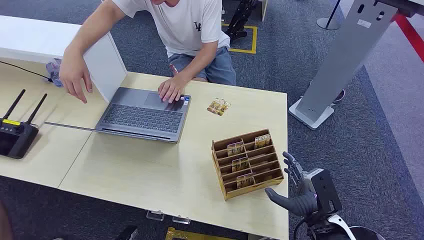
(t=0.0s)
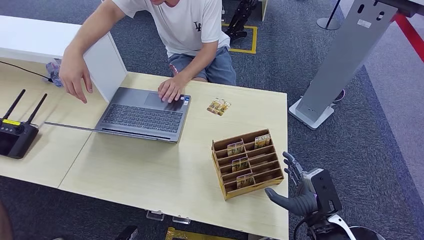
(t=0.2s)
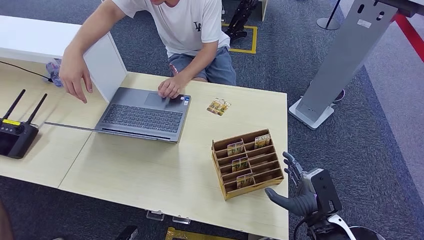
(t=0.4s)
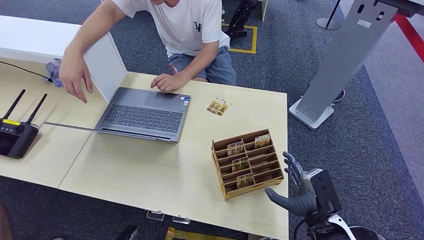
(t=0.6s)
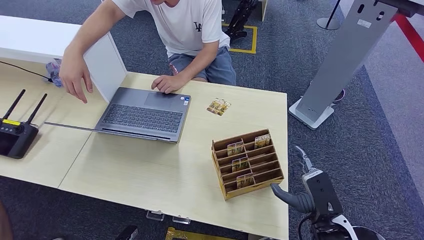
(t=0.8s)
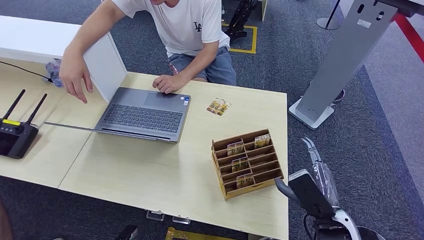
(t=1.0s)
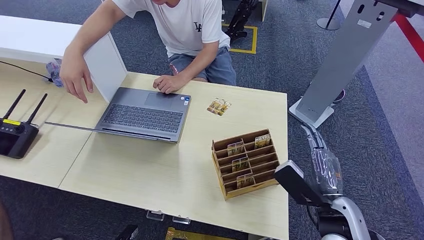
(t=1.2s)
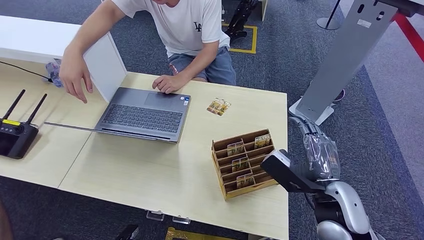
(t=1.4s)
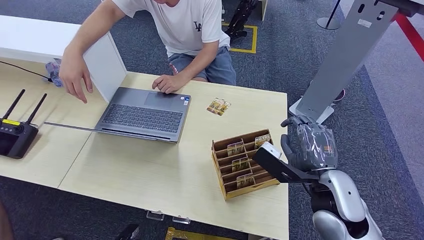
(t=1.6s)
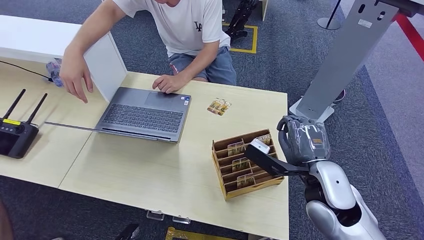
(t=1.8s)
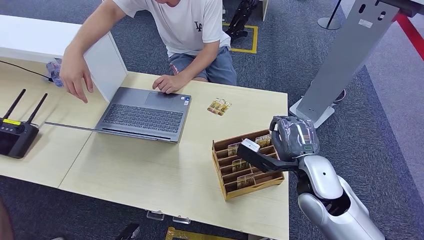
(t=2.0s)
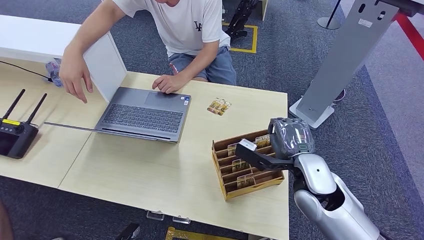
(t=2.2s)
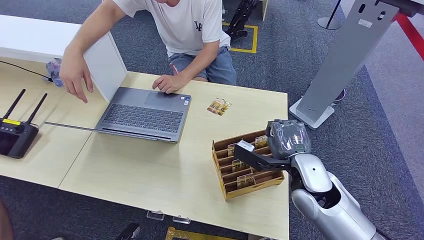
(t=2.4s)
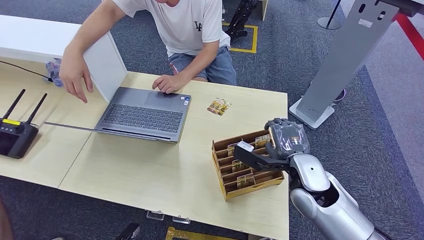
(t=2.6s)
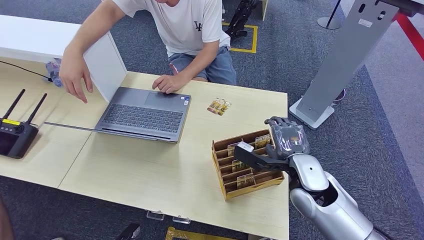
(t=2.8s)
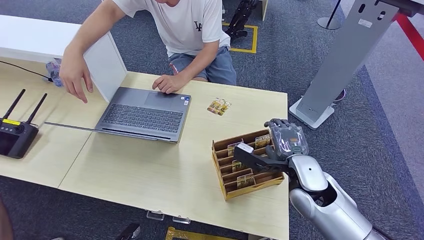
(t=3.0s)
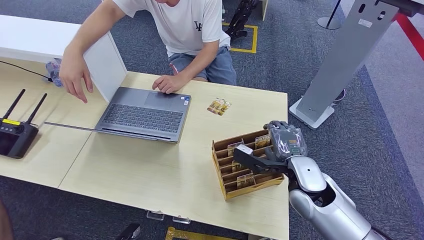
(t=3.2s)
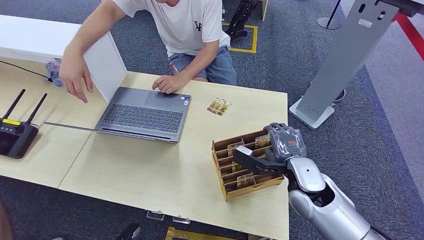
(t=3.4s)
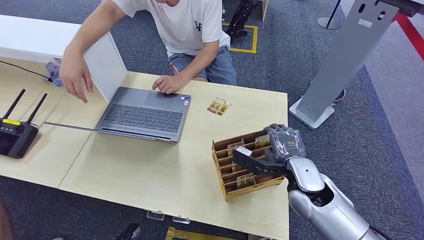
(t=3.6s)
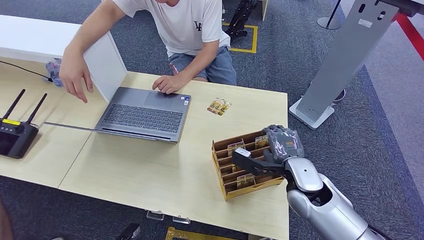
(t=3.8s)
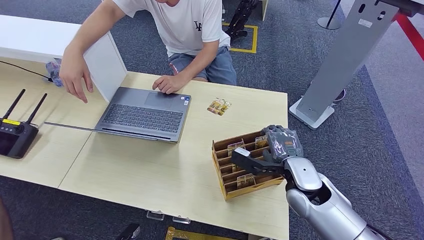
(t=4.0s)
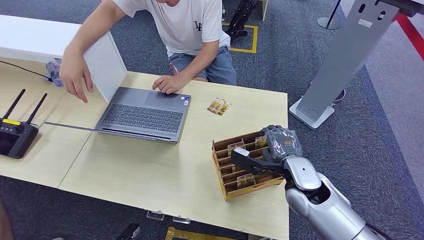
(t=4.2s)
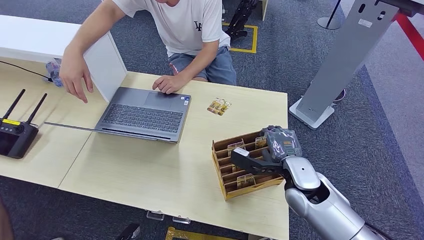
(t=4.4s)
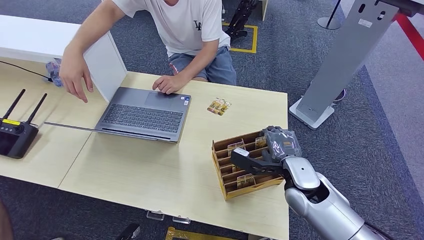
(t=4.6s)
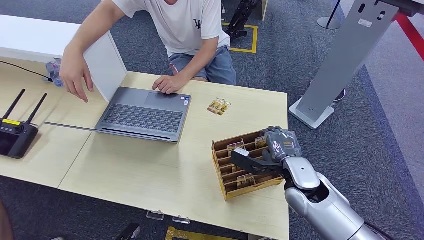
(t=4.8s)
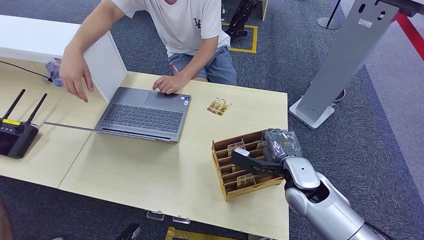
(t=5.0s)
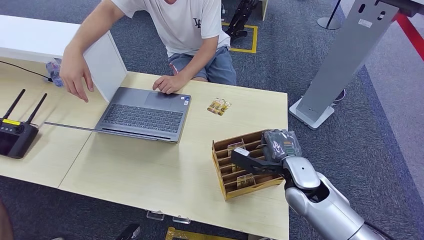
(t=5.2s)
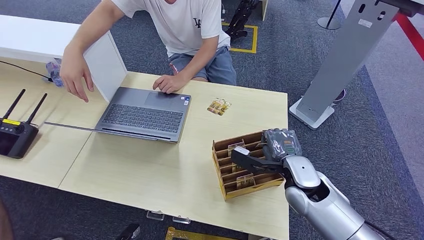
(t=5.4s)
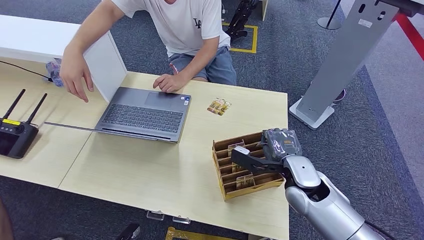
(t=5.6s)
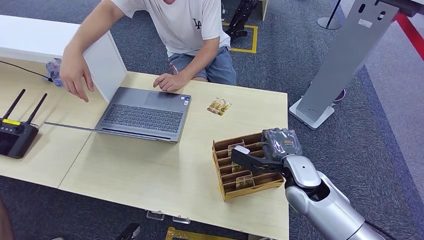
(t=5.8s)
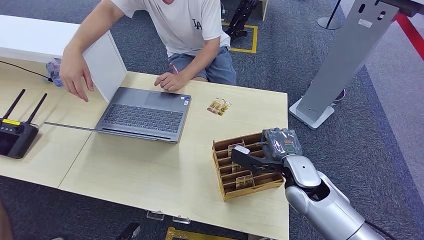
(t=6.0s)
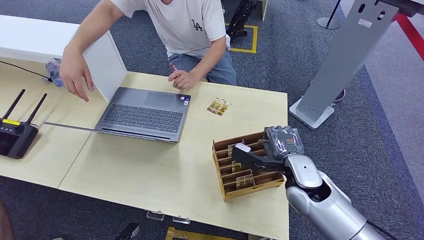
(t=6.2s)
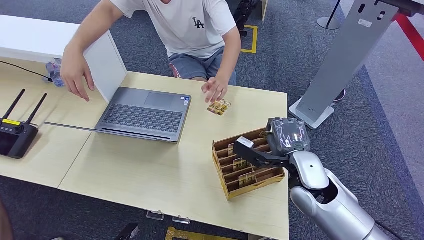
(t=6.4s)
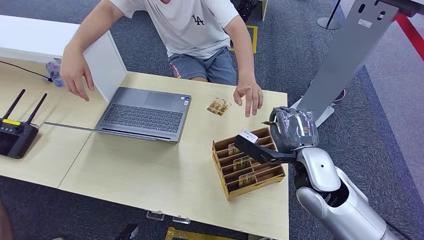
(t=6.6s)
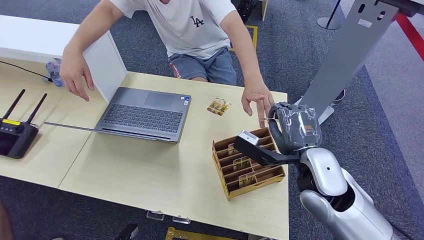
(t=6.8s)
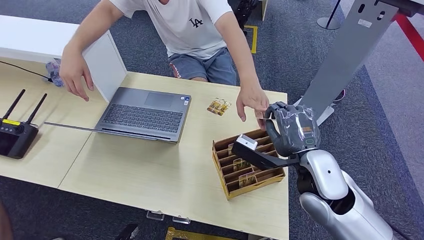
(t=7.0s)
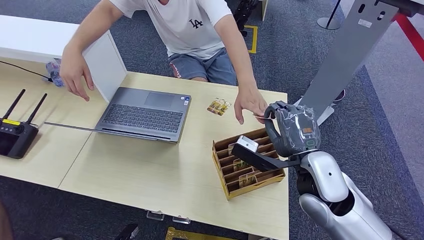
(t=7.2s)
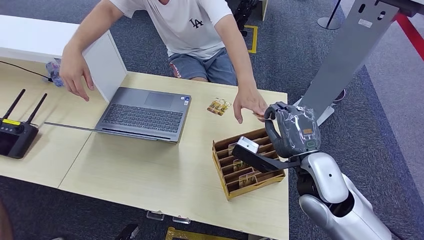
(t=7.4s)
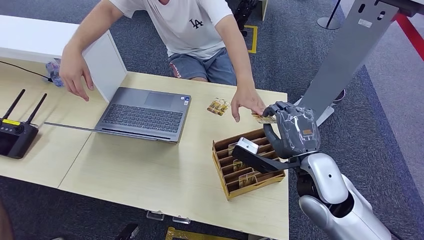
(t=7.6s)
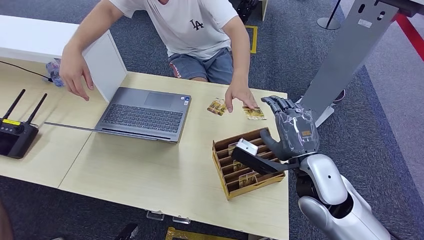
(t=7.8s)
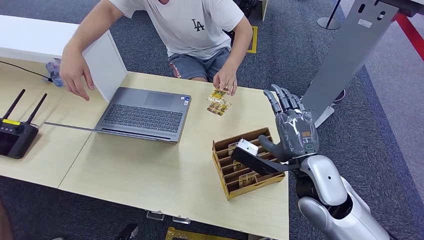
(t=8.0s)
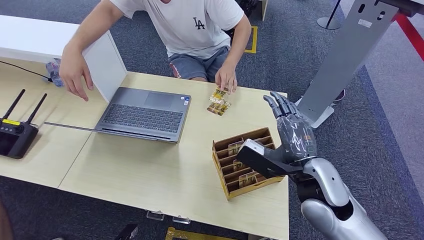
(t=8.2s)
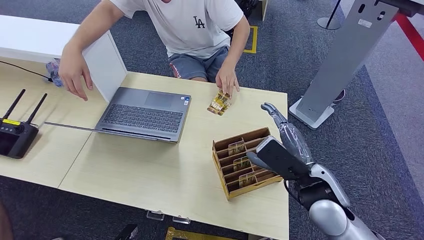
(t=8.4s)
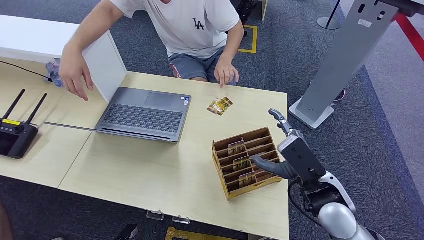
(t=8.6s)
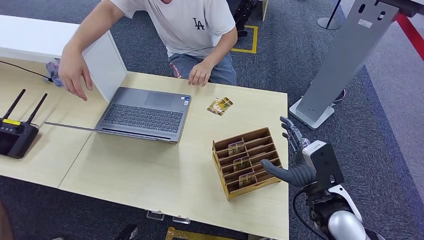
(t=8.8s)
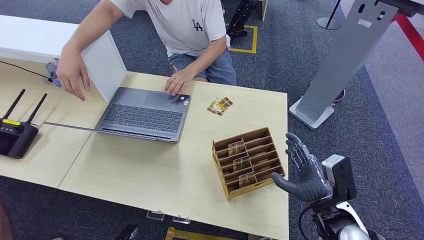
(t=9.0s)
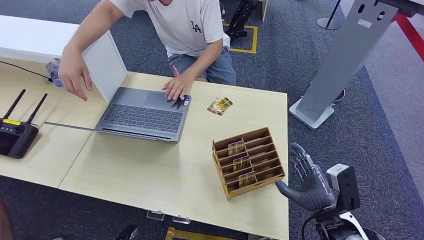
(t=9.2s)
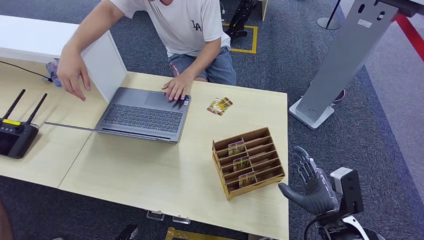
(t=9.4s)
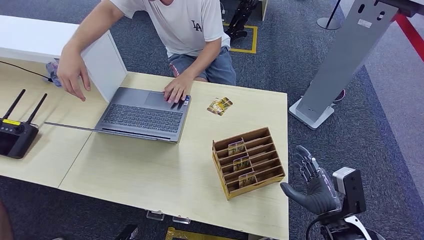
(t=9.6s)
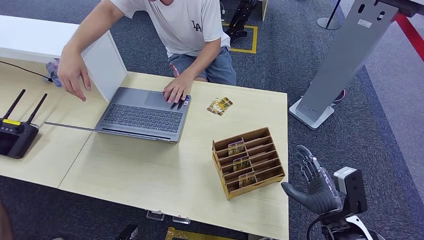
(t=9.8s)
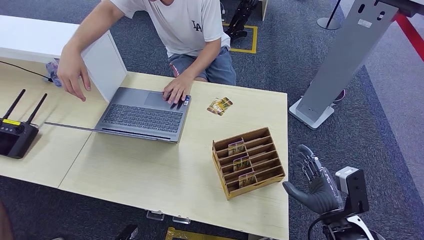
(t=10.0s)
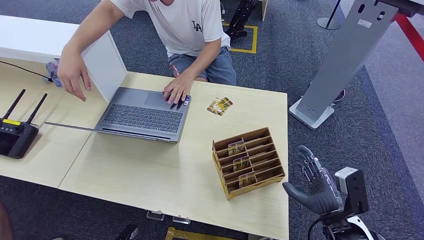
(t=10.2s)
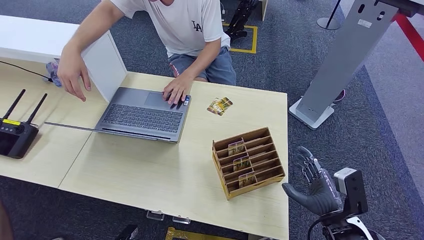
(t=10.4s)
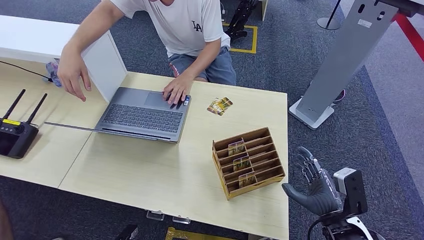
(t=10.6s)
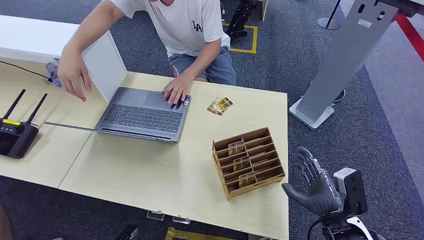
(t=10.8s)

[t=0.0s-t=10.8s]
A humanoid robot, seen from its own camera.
Step, t=0.0s to t=6.6s: Pick up the room card from the card holder.
Step, t=6.8s to t=10.6s: Hand the room card to the target.
t=1.6s to t=3.0s: The right hand moves forward, roughly 5 cm.
t=3.0s to t=4.6s: The hands stay close to where they were, moving slightly.
t=4.6s to t=6.2s: Neither hand changes place.
t=6.2s to t=7.8s: The right hand moves upward, roughly 5 cm.
t=7.8s to t=9.2s: The right hand is displaced downward, to the right and backward by roughly 15 cm.
t=9.2s to t=10.8s: The hands stay close to where they were, moving slightly.
